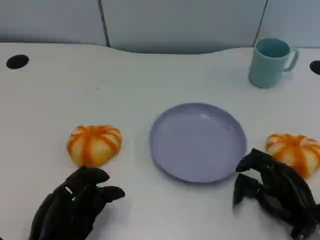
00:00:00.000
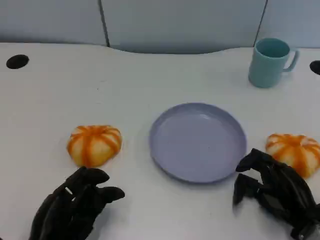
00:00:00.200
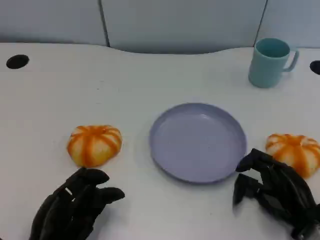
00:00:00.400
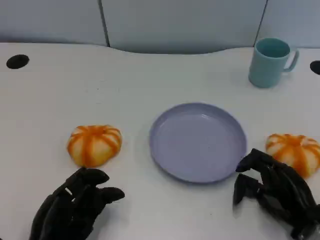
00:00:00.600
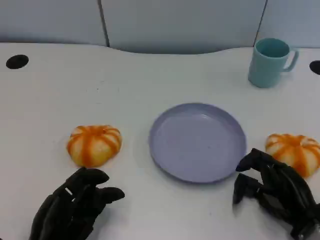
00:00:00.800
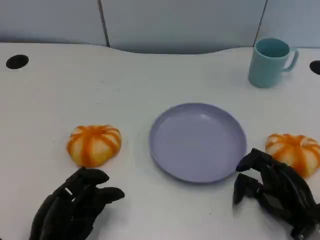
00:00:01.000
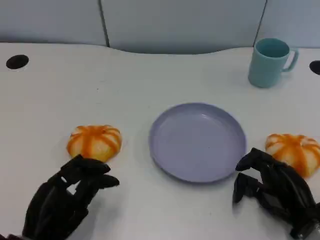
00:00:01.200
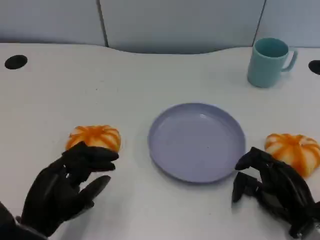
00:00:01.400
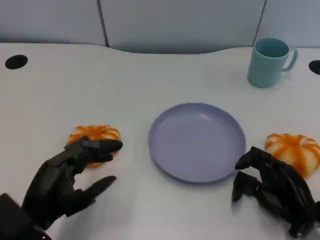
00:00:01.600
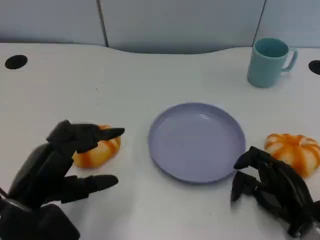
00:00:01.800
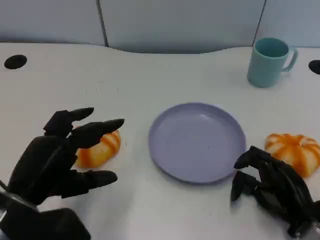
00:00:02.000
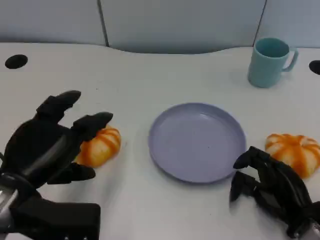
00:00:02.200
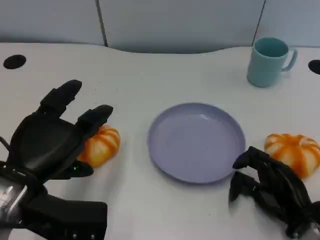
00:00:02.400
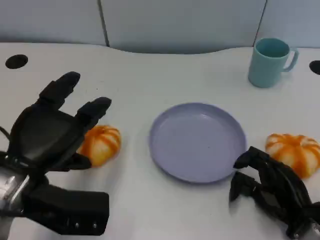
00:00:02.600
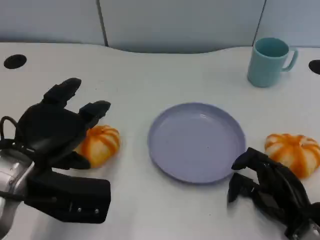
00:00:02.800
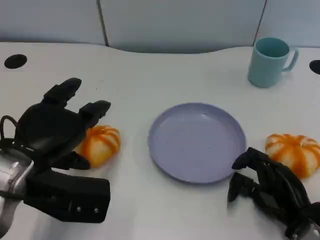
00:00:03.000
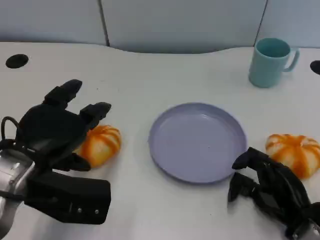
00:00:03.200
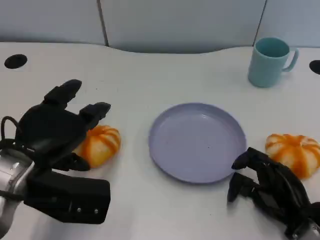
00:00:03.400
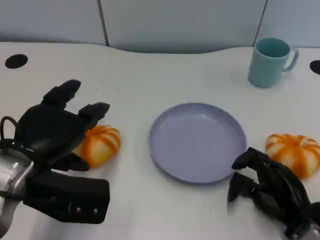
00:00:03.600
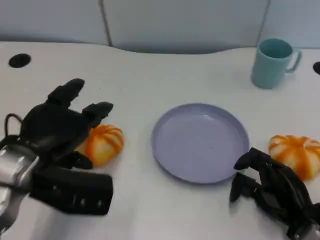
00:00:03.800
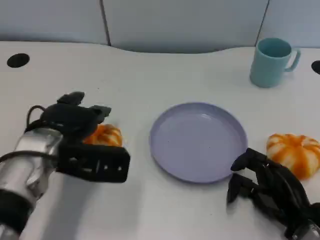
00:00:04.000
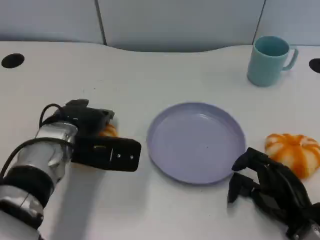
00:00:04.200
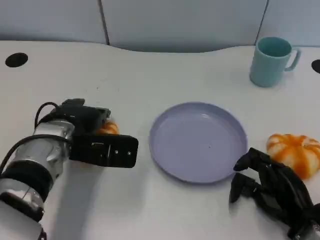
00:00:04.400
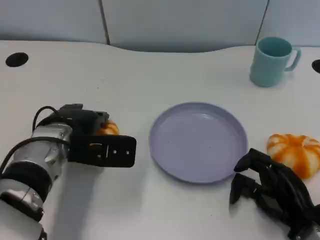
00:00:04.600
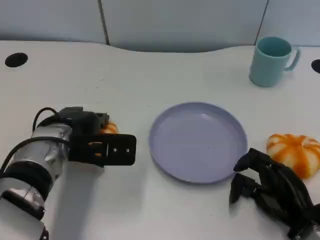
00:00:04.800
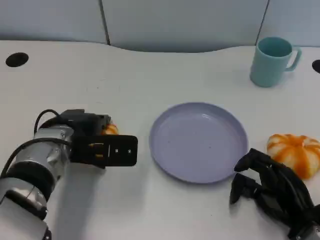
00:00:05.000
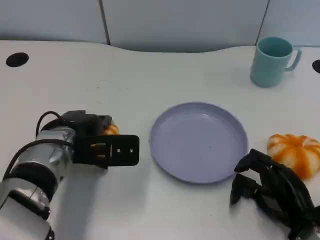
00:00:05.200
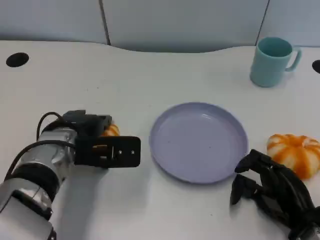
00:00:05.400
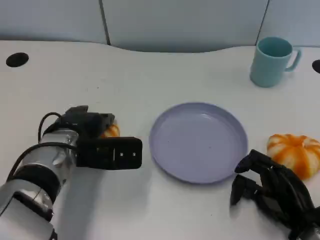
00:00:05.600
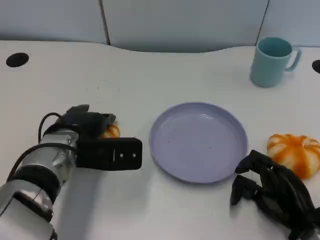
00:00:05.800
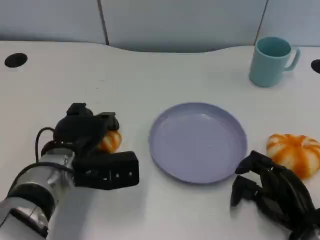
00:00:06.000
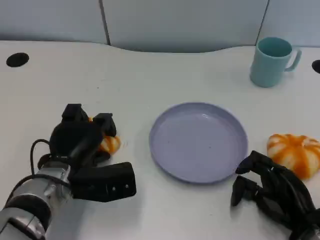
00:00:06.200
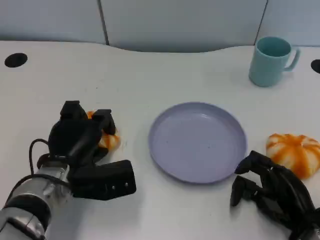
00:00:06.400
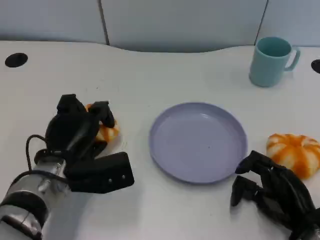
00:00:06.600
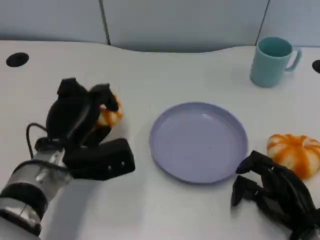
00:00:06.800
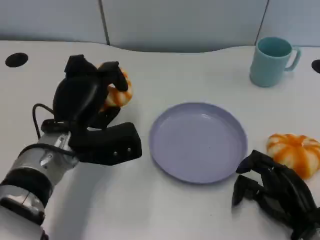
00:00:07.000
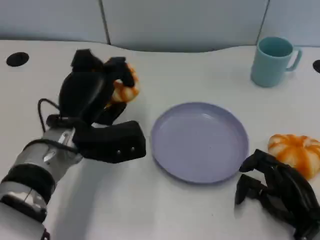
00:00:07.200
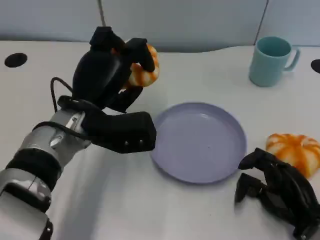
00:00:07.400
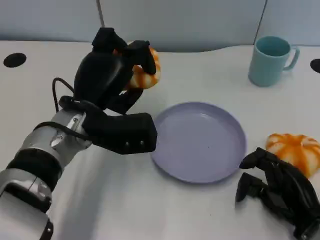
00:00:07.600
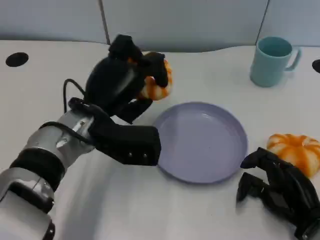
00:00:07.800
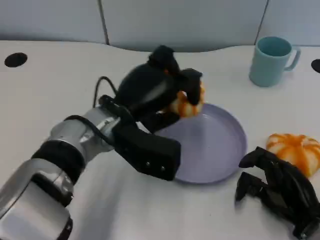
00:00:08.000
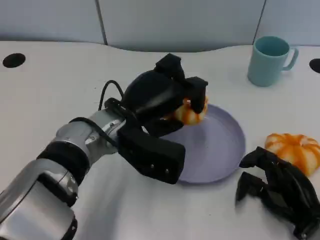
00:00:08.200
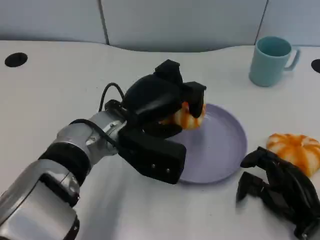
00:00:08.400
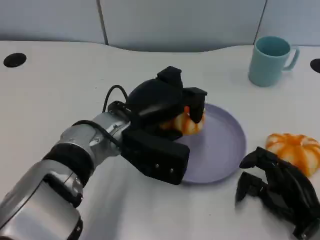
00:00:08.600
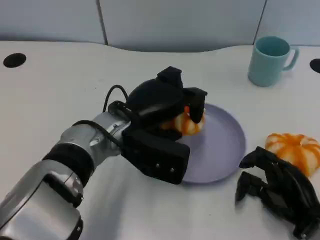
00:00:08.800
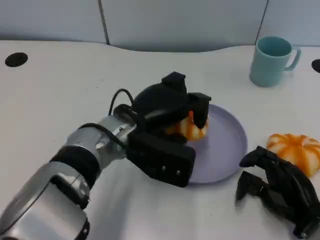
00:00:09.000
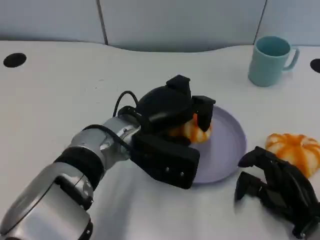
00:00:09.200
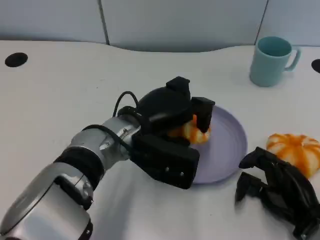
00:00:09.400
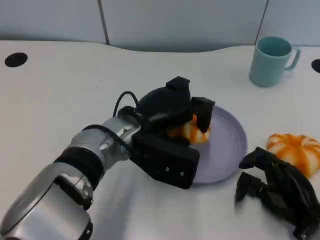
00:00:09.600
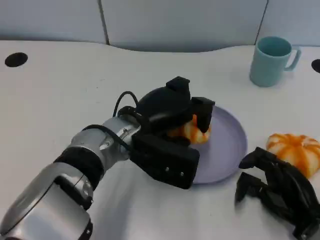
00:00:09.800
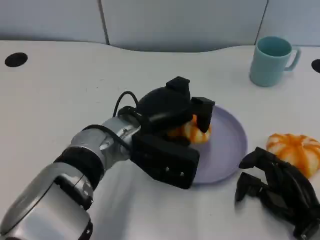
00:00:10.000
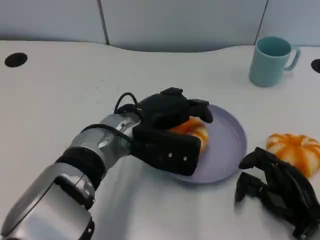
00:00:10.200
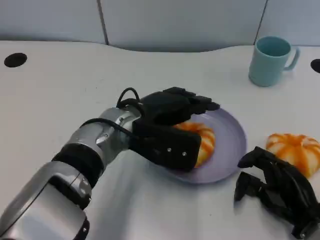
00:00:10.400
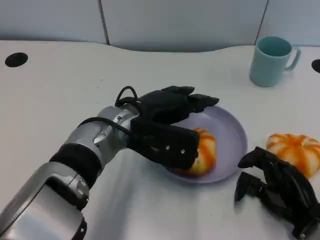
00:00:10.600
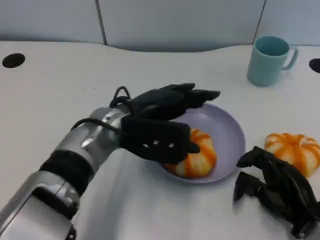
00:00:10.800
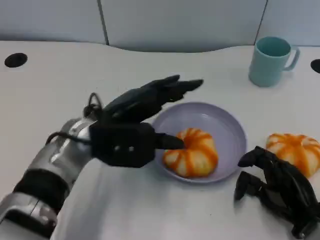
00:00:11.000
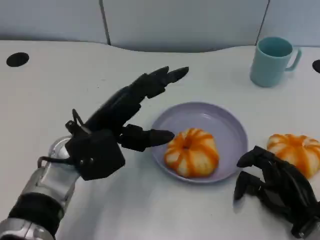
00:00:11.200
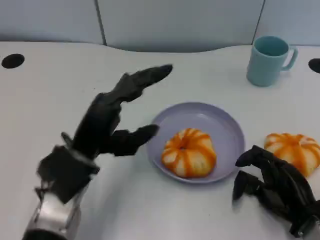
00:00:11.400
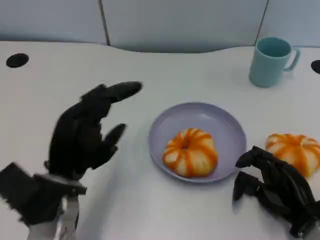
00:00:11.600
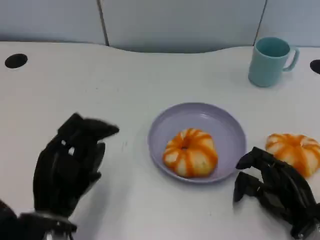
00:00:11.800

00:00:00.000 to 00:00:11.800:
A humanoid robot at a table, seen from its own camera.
Task of the whole recording: Grasp the bread from the table and place it into the plate.
00:00:01.400 to 00:00:03.000: The left hand is displaced upward and forward by some 10 cm.
00:00:03.000 to 00:00:04.400: The left hand is displaced forward by approximately 10 cm.
00:00:04.400 to 00:00:06.000: The left hand shifts by some 5 cm.
00:00:06.000 to 00:00:07.400: The left hand shifts roughly 10 cm upward.
00:00:07.400 to 00:00:08.800: The left hand goes some 5 cm to the right.
00:00:08.800 to 00:00:10.400: The hands move only a little.
00:00:10.400 to 00:00:11.800: The left hand moves backward, to the left and downward, about 20 cm.

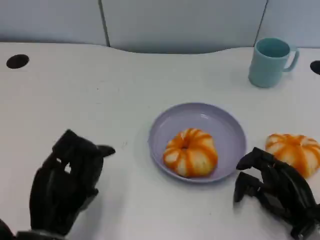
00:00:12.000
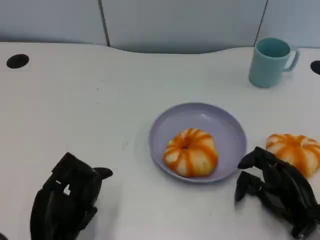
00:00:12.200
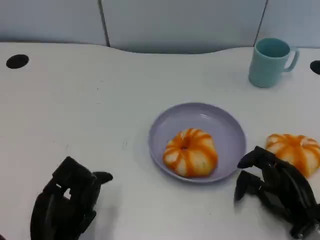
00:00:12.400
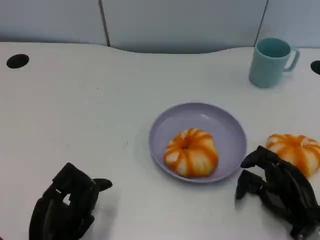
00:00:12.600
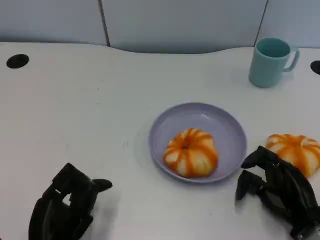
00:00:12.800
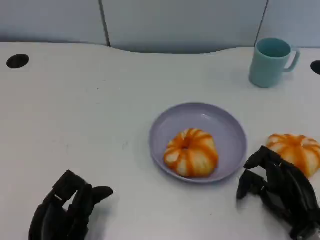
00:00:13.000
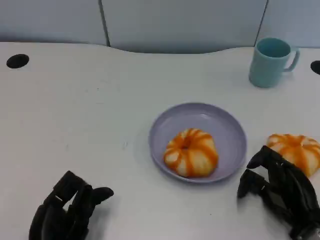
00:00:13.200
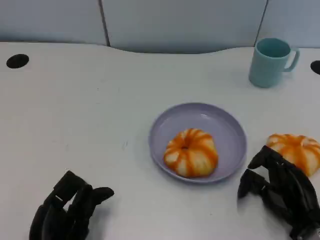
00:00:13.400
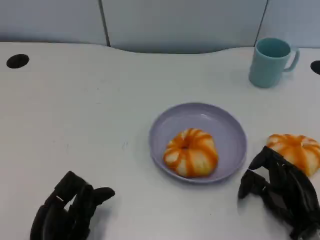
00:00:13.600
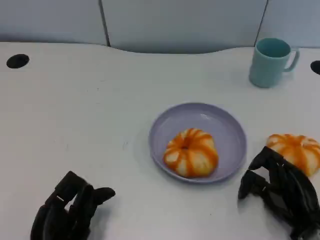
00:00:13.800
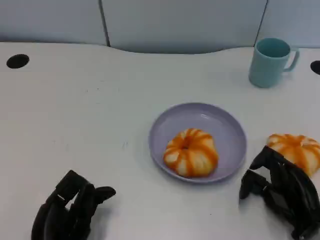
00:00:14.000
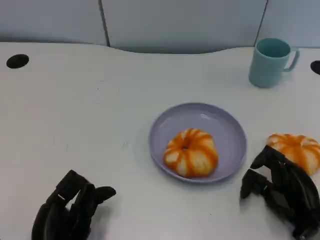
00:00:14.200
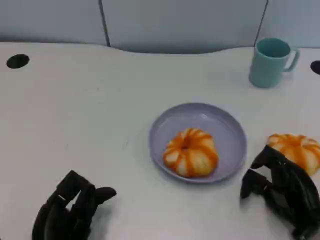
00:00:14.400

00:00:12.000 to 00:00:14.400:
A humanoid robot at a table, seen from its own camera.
Task of the whole recording: Grasp the bread from the table and place it into the plate.
00:00:13.200 to 00:00:14.400: Both hands stay about where they are.

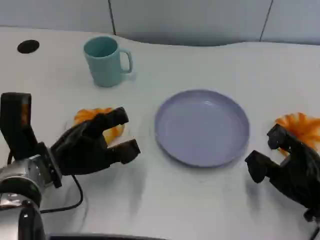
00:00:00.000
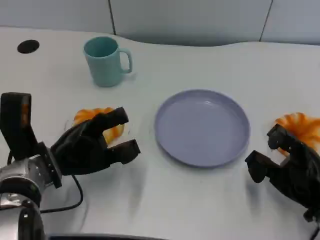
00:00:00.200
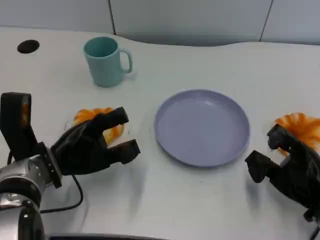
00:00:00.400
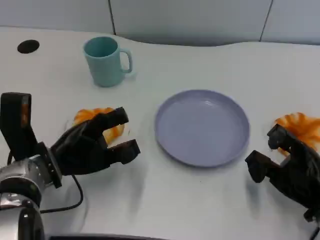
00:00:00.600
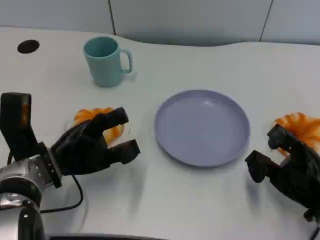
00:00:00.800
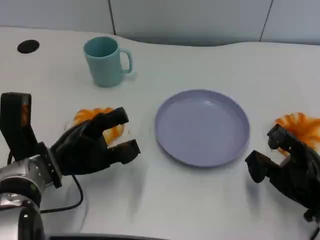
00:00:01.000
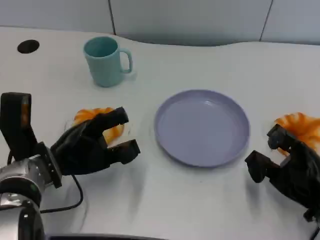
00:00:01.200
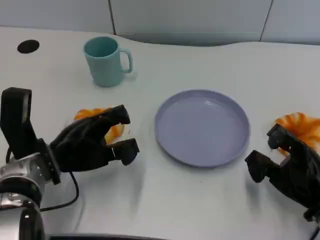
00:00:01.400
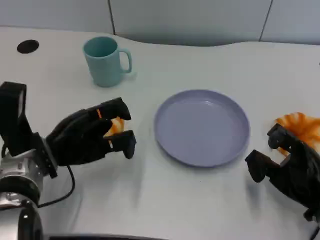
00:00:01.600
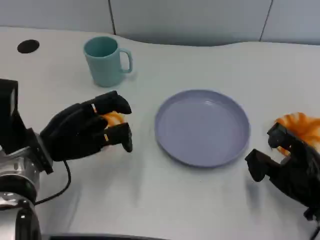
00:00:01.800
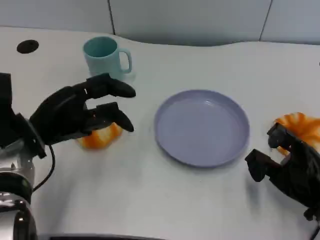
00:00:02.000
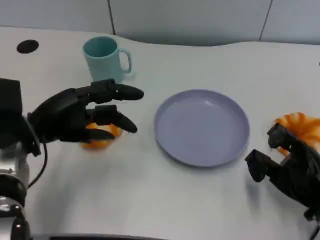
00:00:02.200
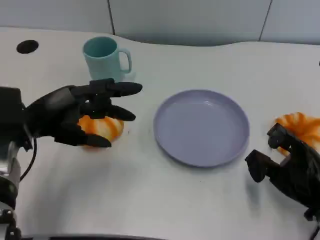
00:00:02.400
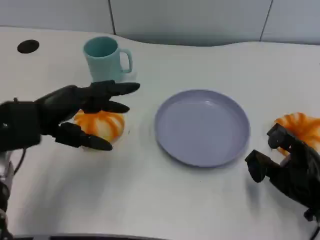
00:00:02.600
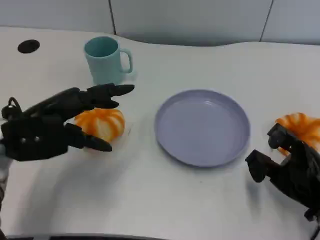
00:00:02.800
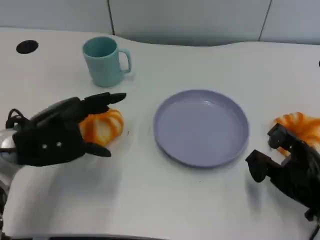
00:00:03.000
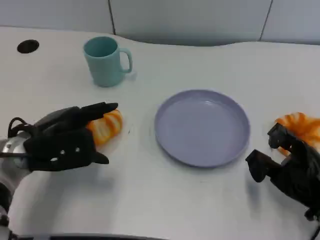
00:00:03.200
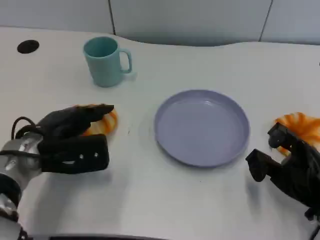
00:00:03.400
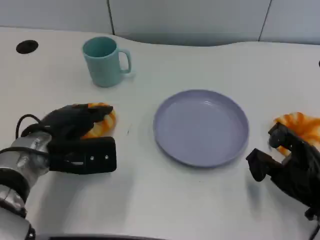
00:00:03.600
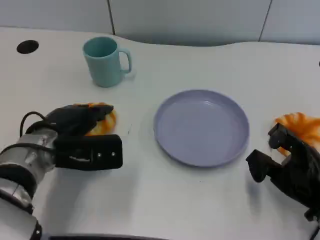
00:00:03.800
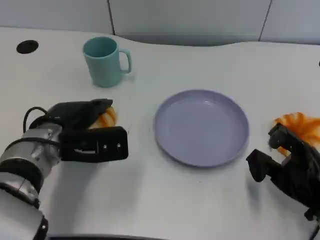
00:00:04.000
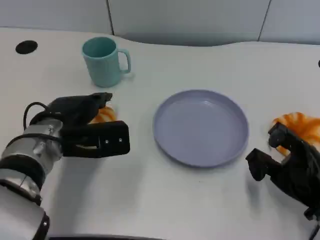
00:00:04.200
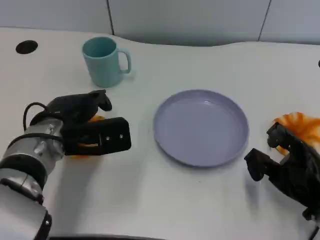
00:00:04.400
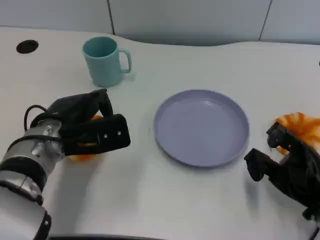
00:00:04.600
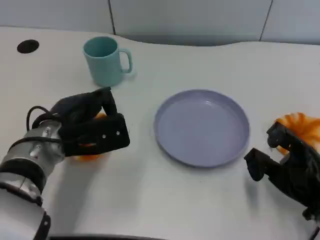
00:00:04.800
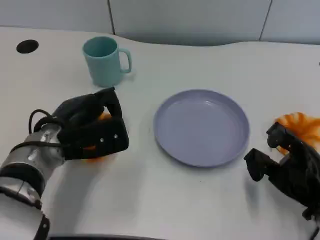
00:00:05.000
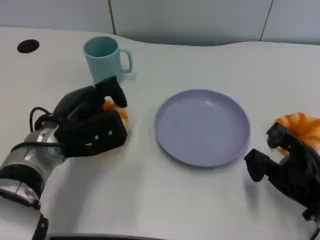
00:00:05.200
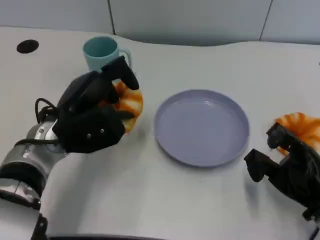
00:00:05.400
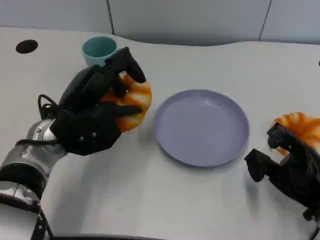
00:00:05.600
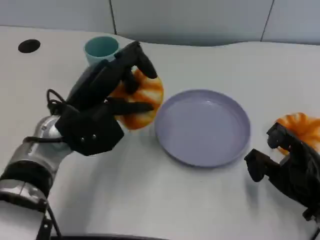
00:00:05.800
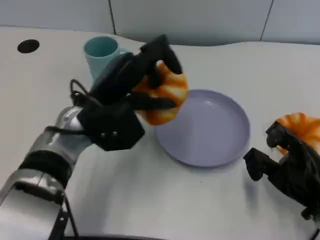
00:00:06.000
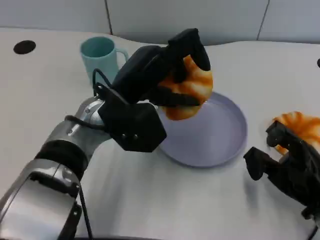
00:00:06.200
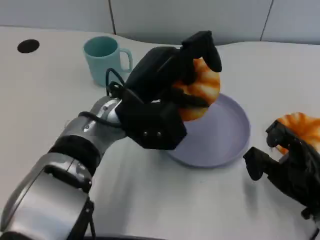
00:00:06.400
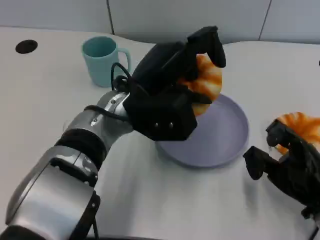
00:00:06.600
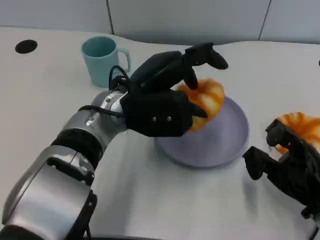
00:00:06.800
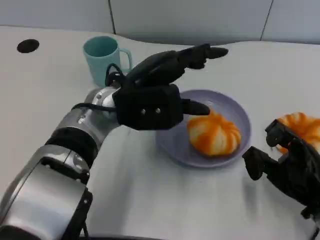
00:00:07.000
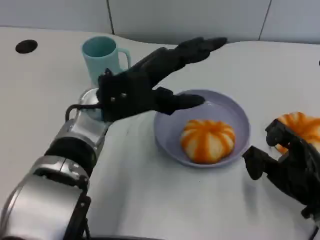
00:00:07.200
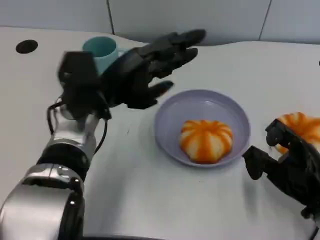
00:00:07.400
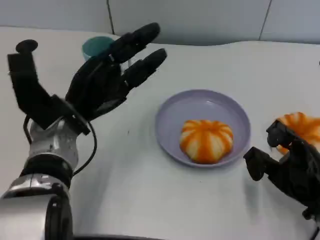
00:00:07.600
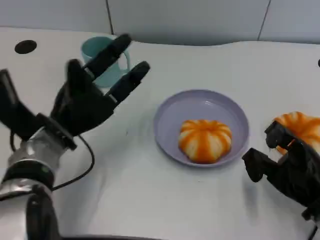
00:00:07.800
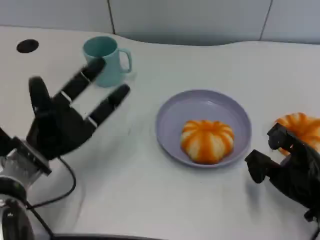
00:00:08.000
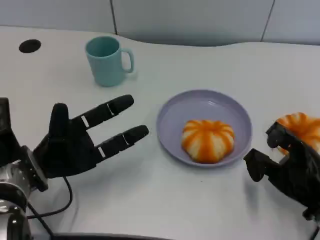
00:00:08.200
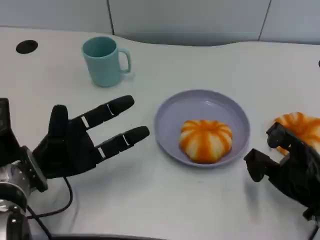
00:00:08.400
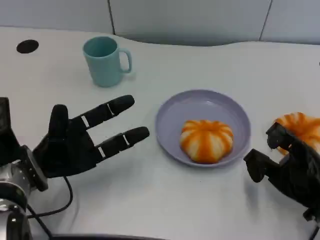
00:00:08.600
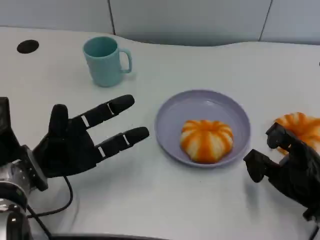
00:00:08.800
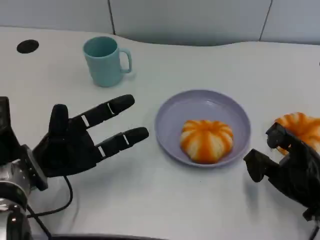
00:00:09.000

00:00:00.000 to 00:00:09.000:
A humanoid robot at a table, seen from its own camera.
Task of the whole recording: Grasp the bread from the table and place it into the plate.
00:00:00.000 to 00:00:01.600: The hands move only a little.
00:00:03.000 to 00:00:04.400: The left hand changes place by about 5 cm.
00:00:04.400 to 00:00:06.000: The left hand heads to the right and upward, covering roughly 10 cm.
00:00:06.000 to 00:00:07.600: The left hand heads to the left, covering approximately 5 cm.
00:00:07.600 to 00:00:09.000: The left hand is displaced to the left and downward by approximately 10 cm.
